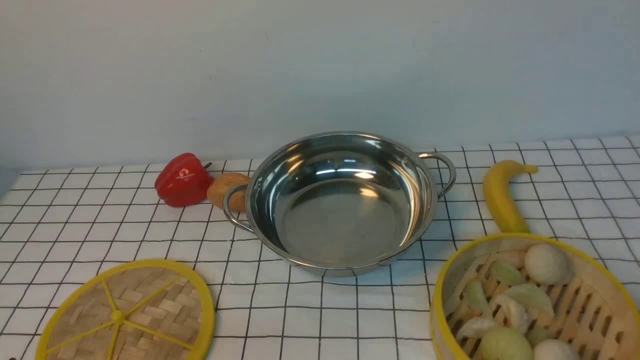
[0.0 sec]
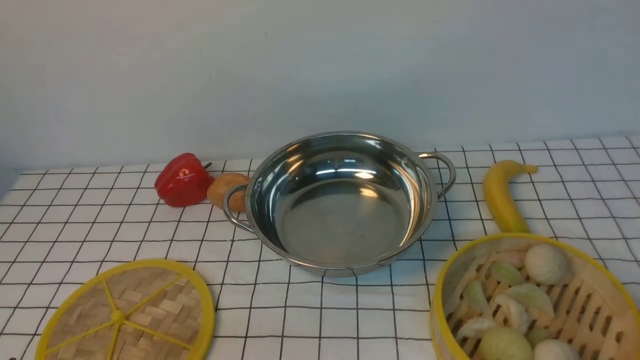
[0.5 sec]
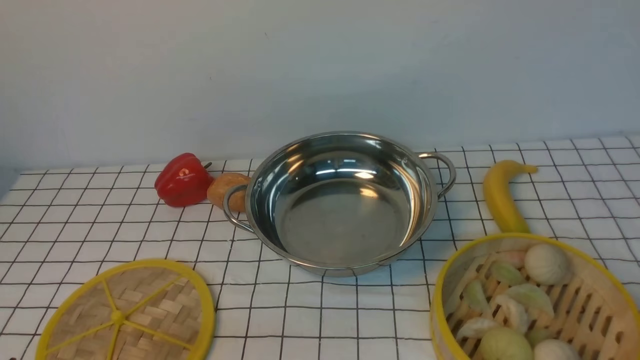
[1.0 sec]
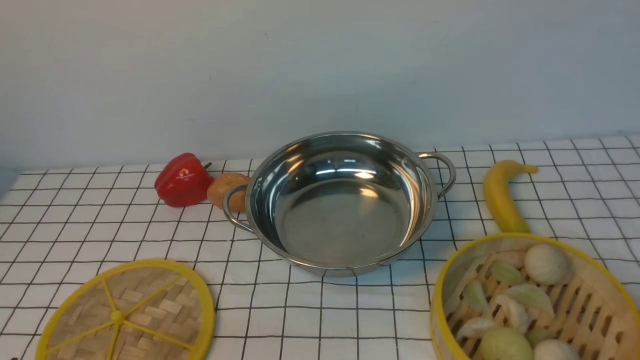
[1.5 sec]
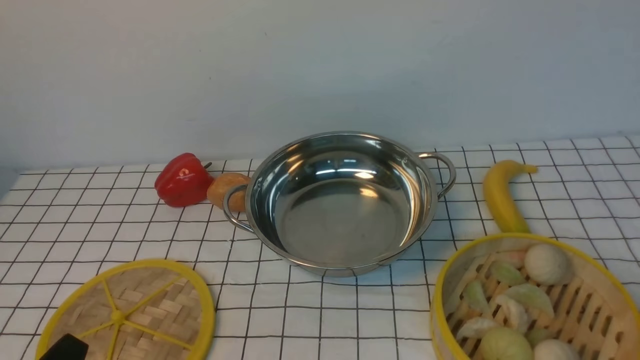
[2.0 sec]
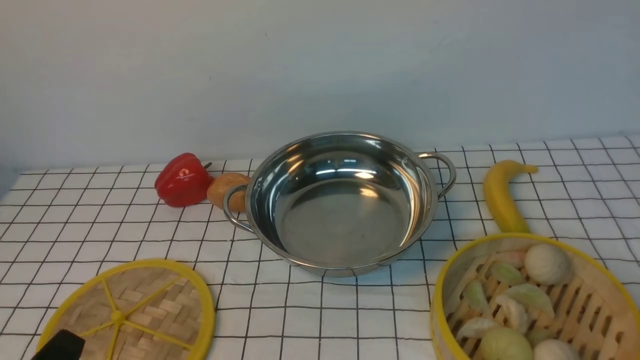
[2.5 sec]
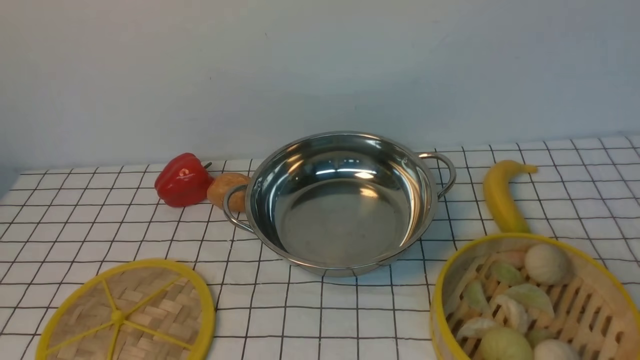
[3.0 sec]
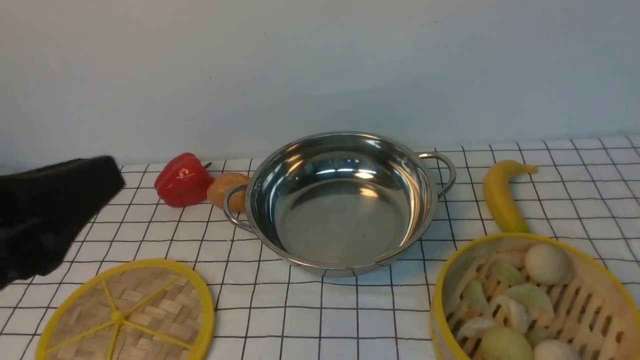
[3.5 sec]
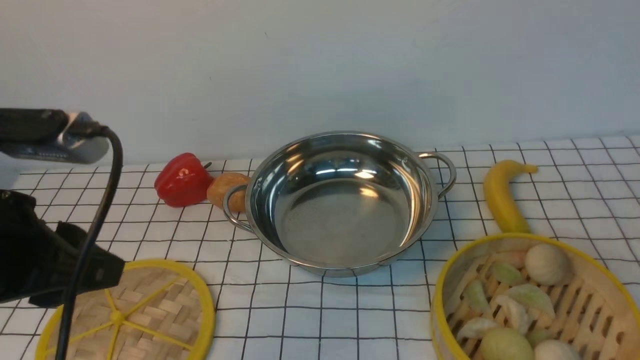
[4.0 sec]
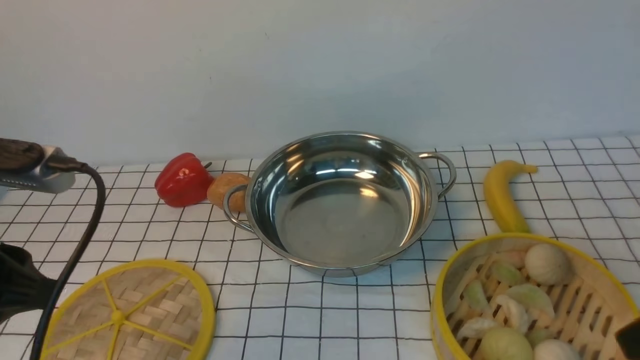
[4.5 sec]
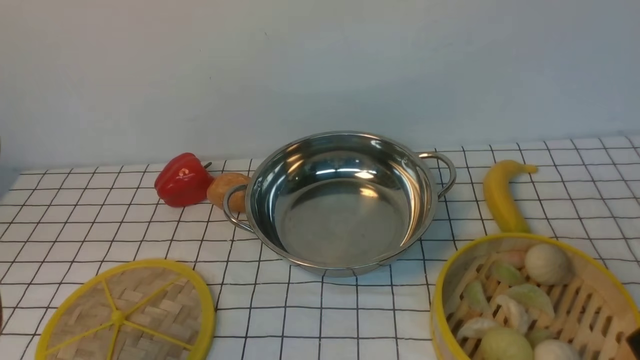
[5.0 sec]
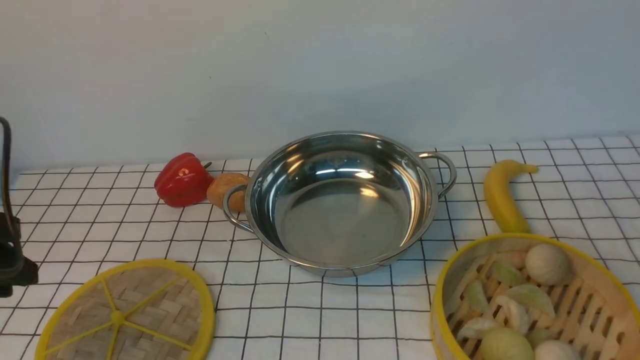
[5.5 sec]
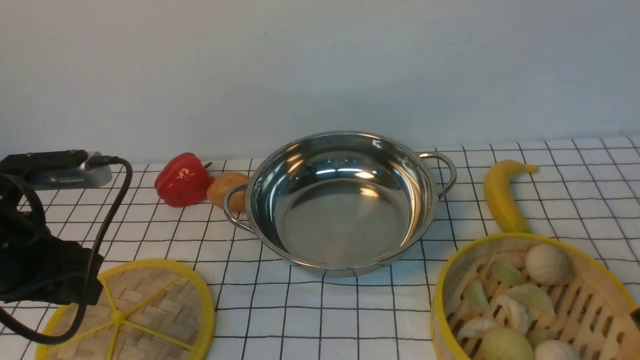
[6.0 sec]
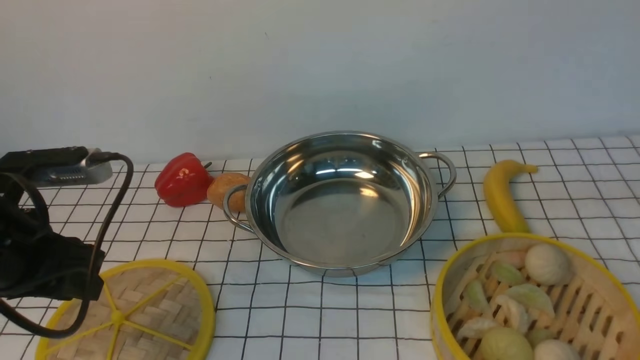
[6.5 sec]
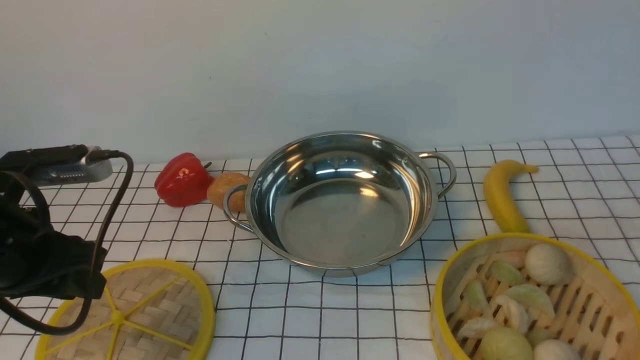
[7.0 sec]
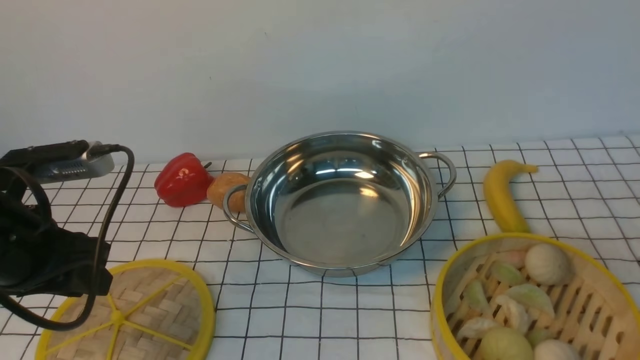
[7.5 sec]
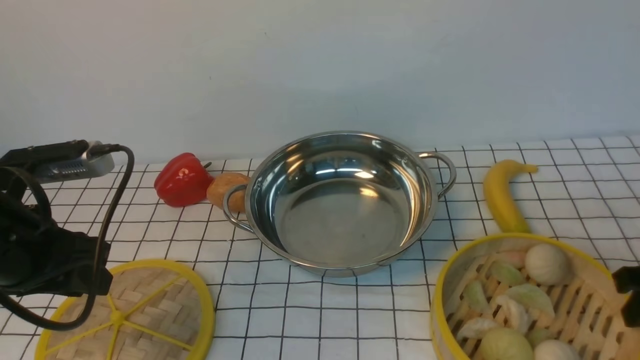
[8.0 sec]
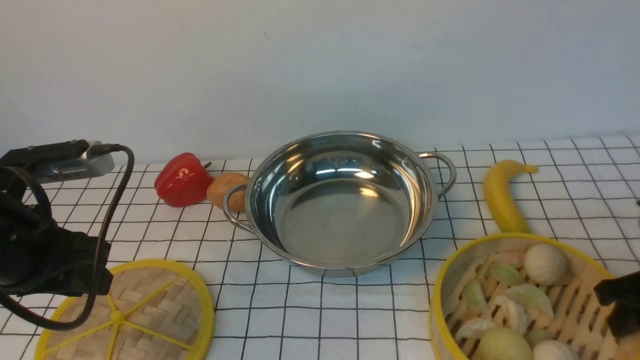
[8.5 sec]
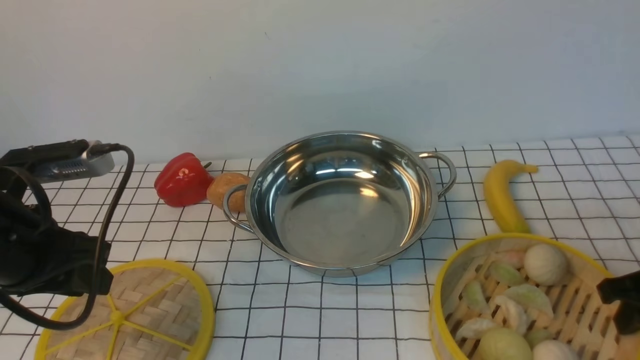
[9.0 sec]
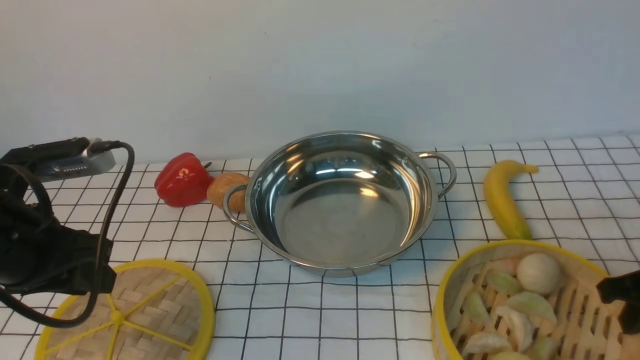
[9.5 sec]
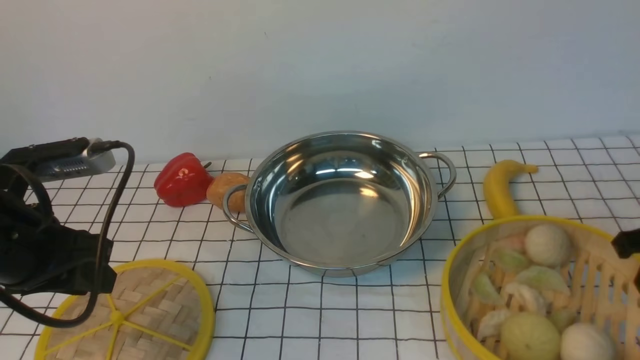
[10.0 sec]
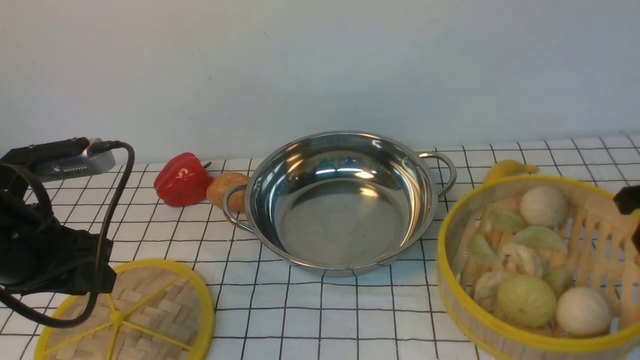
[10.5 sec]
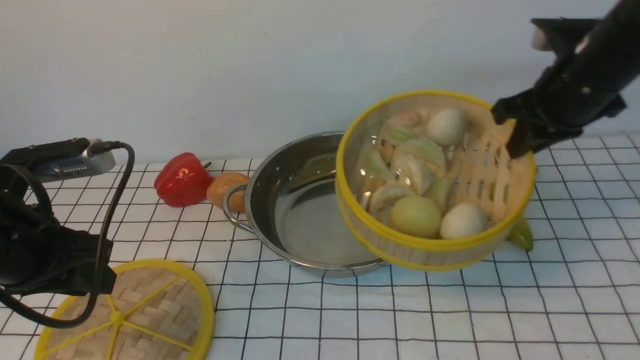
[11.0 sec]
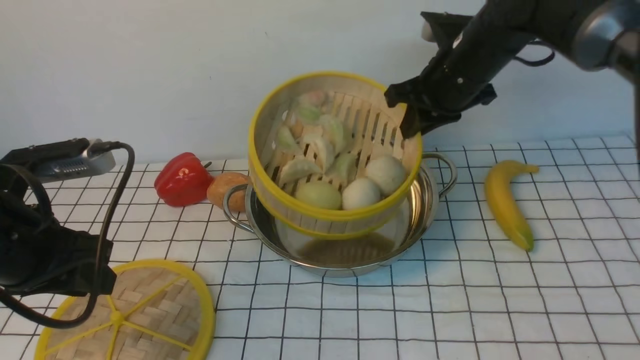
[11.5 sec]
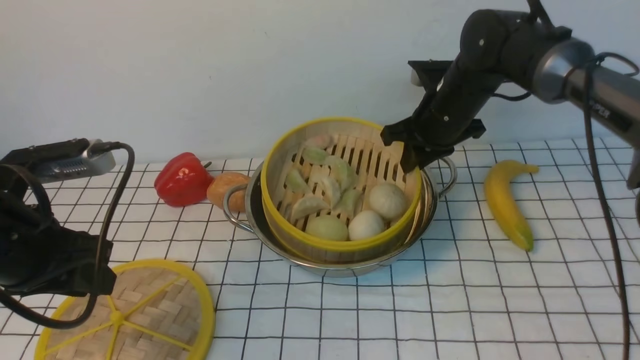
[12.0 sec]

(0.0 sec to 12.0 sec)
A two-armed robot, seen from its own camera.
Task of the whole recording: place the steamer in the pot on the white tablecloth, and put the lid on the steamer.
Step, 0.0 sec - 9.5 sec: use the right arm to lift the steamer closest to it.
2.0 sec - 4.0 sec: The left gripper goes some 20 cm upward and forward.
4.0 sec - 6.0 sec: The right gripper moves some 5 cm. Meanwhile the left gripper shifts some 10 cm downward, forward and to the left.
8.0 sec - 10.0 sec: The right gripper closes up.
10.0 sec - 12.0 sec: The right gripper moves to the left and forward, roughly 25 cm.

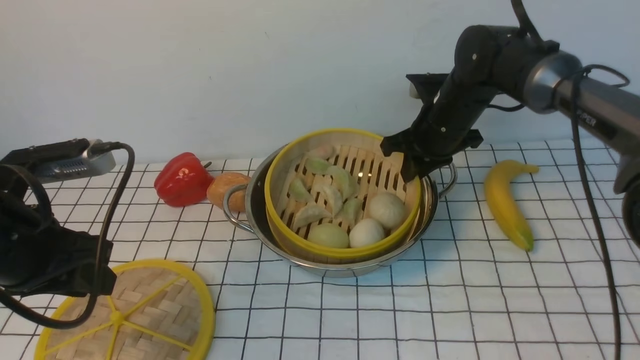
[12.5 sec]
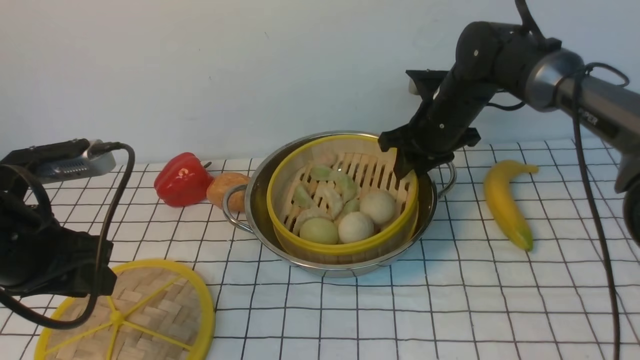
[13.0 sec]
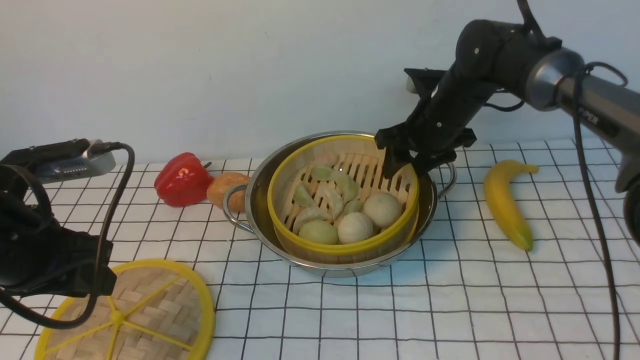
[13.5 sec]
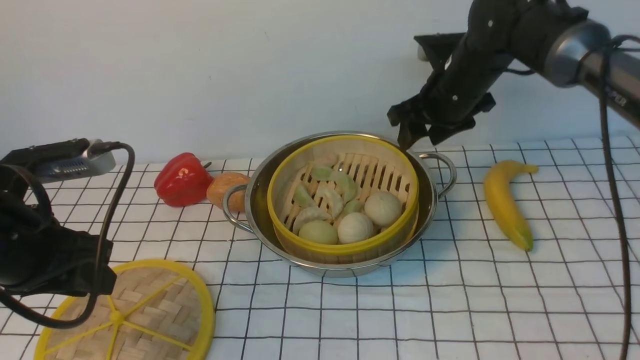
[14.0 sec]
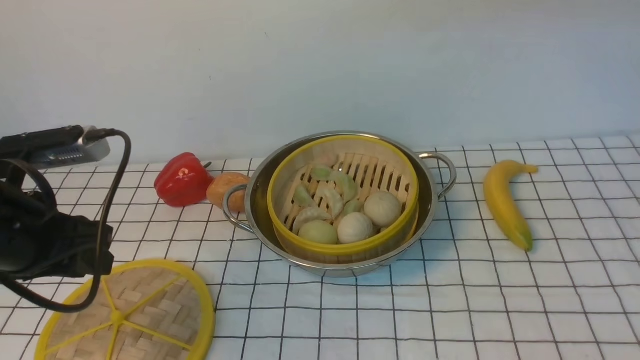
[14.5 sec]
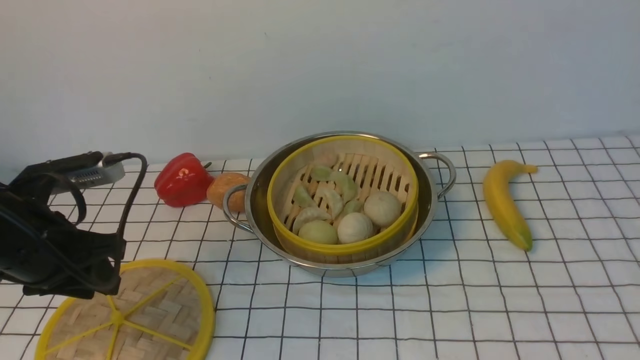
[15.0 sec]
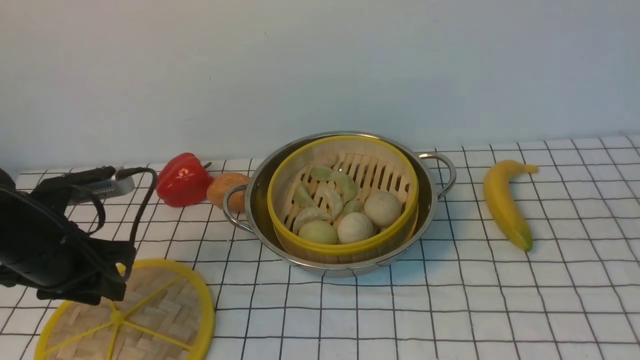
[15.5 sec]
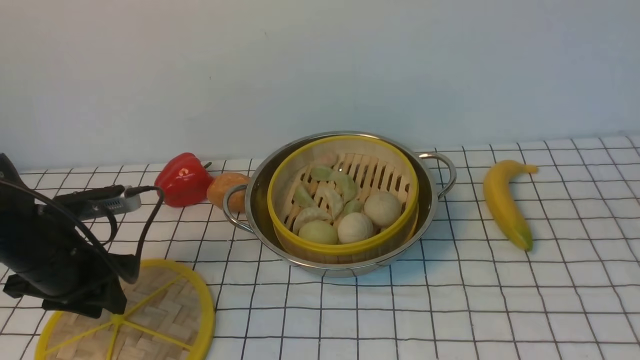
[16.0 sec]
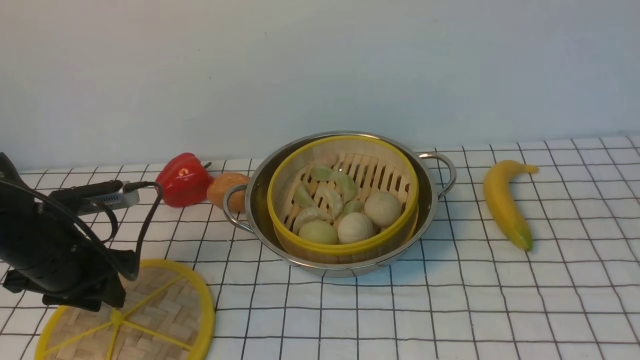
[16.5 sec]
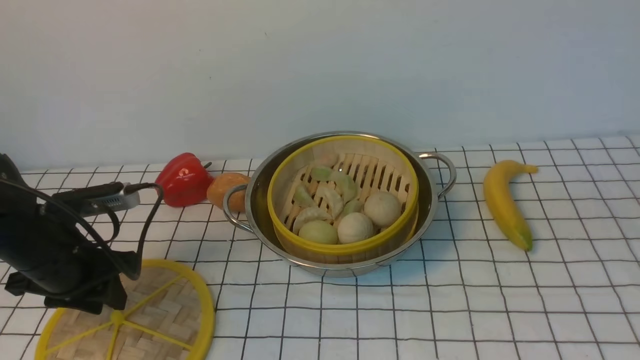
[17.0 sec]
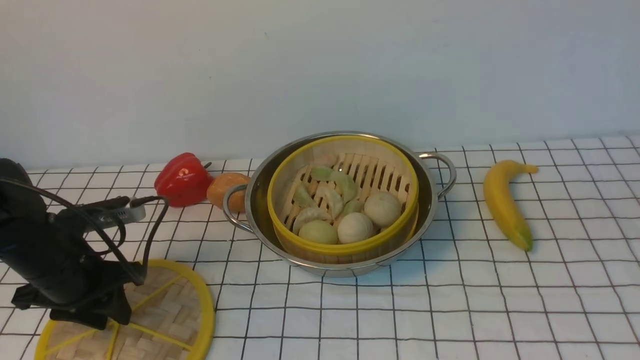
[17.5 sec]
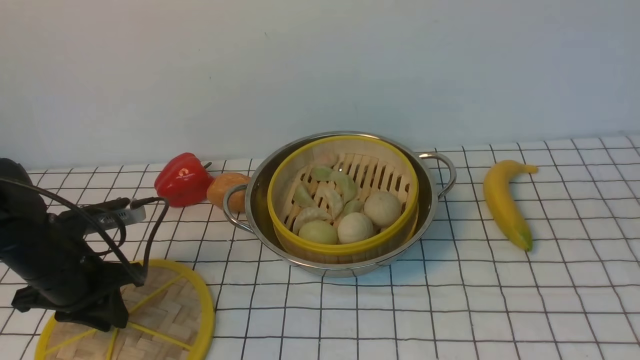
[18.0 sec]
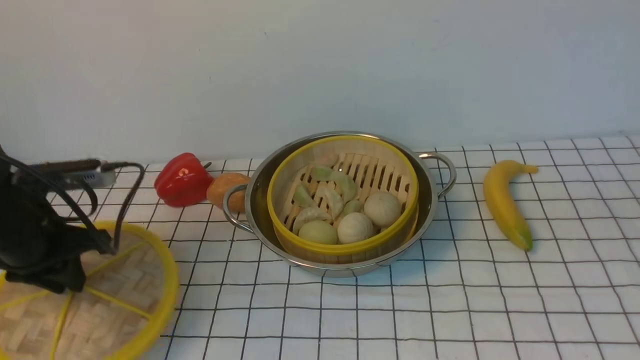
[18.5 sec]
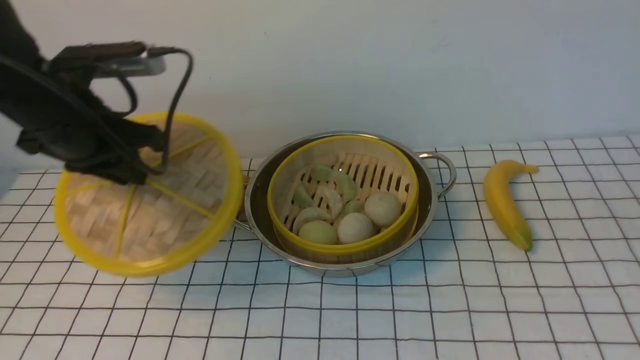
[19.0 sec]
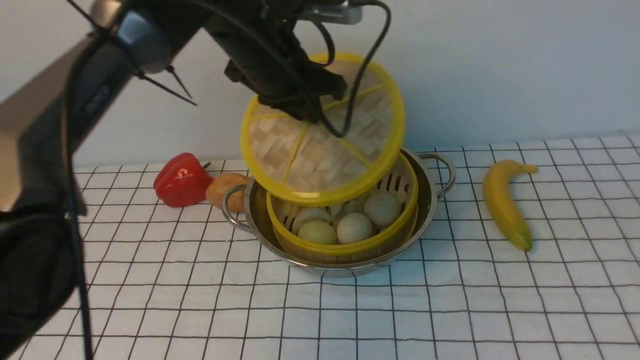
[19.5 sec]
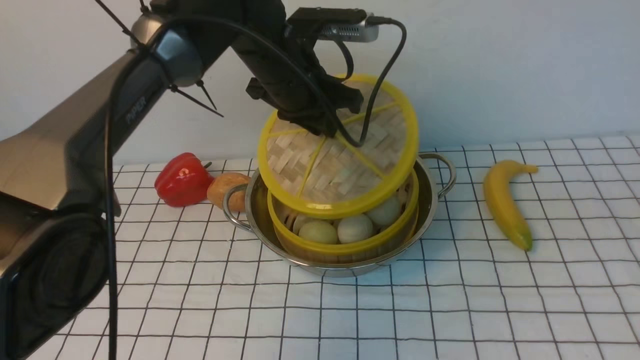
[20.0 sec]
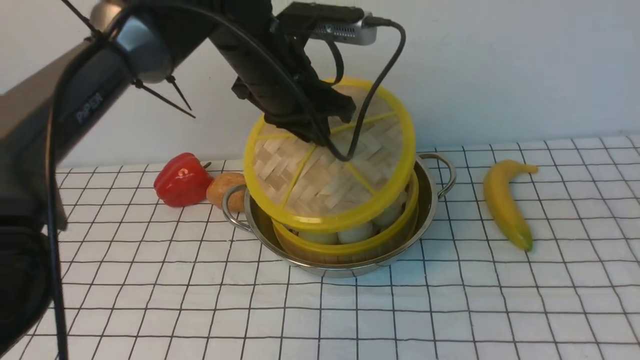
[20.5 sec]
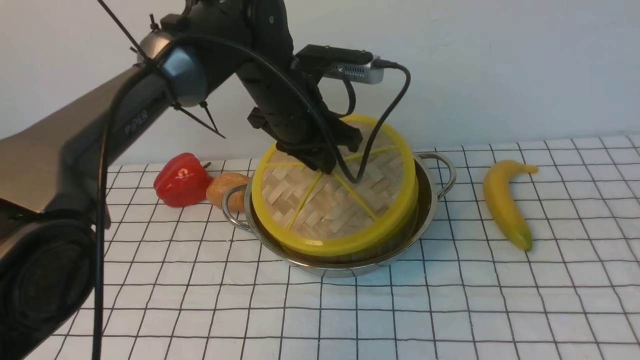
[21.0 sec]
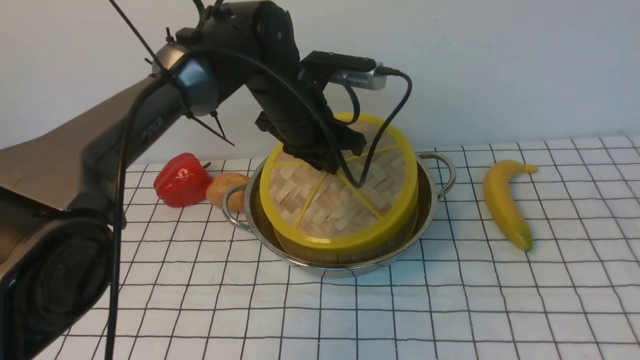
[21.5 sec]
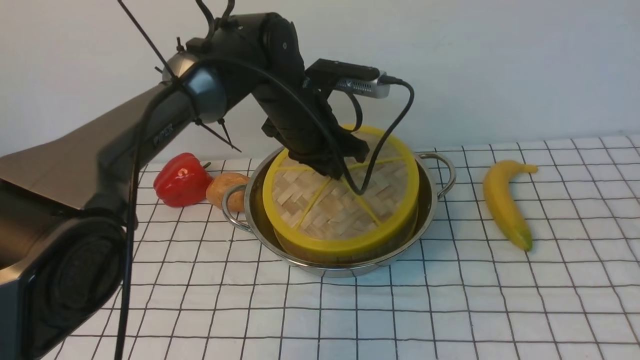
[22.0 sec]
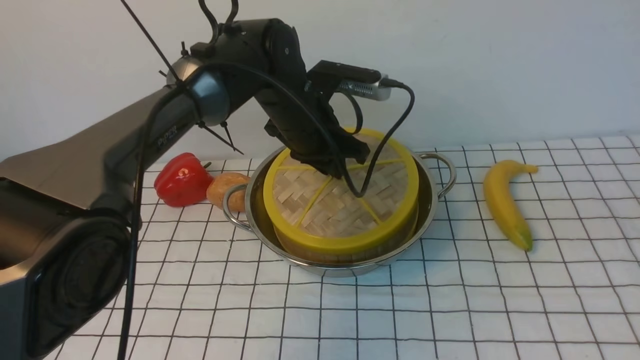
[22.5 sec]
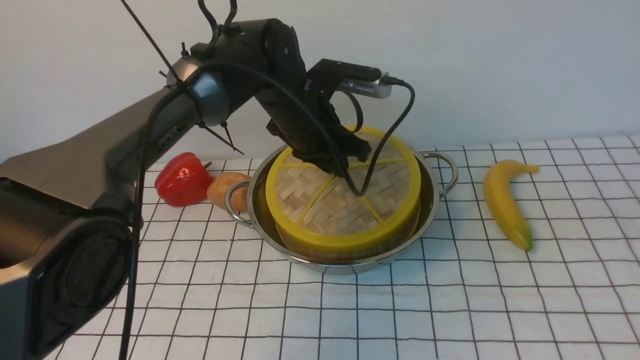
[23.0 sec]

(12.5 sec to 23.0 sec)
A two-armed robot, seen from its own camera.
Task of the whole recording: place the steamer in the pot on the white tablecloth, and put the lid on the steamer.
Step, 14.5 sec - 18.0 sec: use the left arm to lift the lid of the steamer.
12.5 sec - 14.5 sec: The right gripper heads upward and backward, covering about 35 cm, and opens and closes again.
14.5 sec - 16.5 sec: The left gripper moves downward and forward, some 10 cm.
16.5 sec - 19.0 sec: The left gripper heads upward, to the right and forward, covering roughly 15 cm, and closes its fingers.
19.0 sec - 21.0 sec: The left gripper is displaced to the right by roughly 15 cm.
